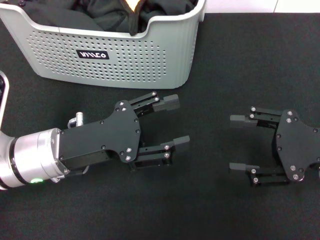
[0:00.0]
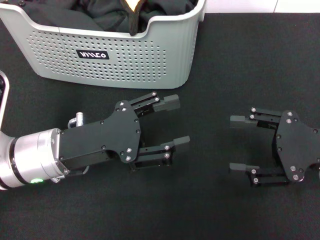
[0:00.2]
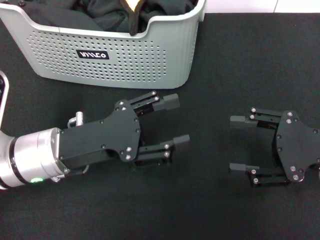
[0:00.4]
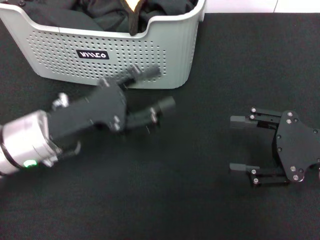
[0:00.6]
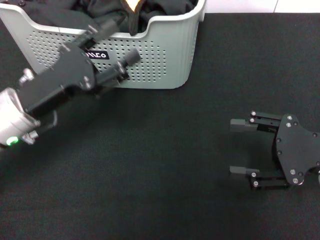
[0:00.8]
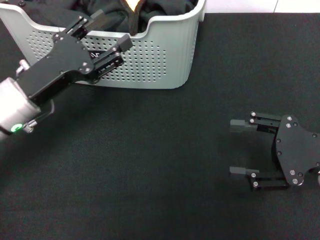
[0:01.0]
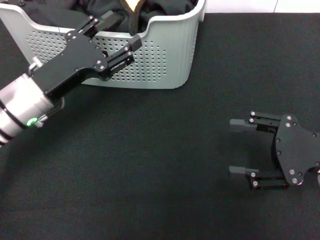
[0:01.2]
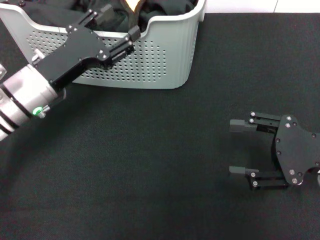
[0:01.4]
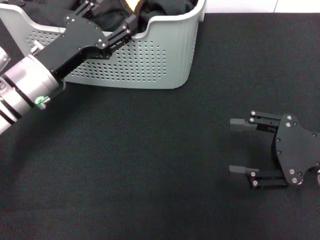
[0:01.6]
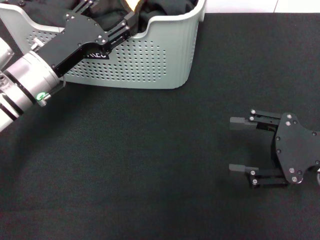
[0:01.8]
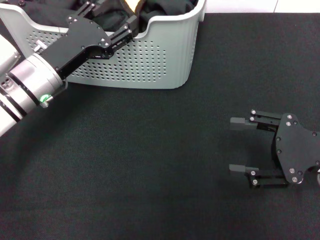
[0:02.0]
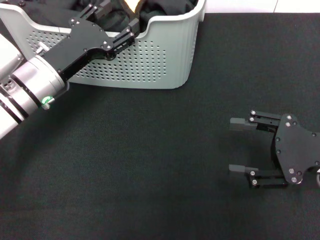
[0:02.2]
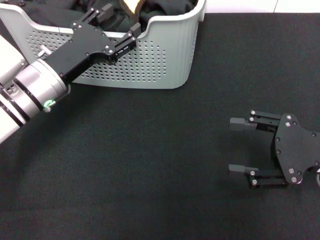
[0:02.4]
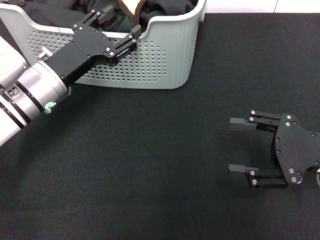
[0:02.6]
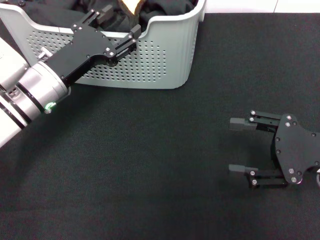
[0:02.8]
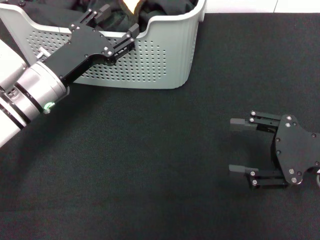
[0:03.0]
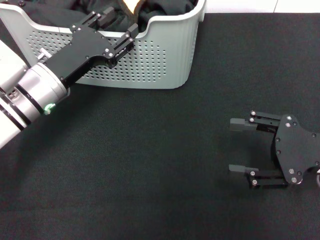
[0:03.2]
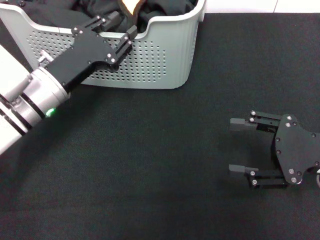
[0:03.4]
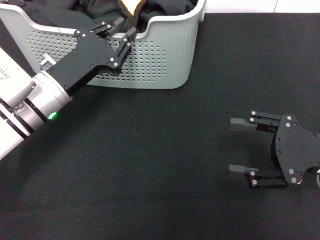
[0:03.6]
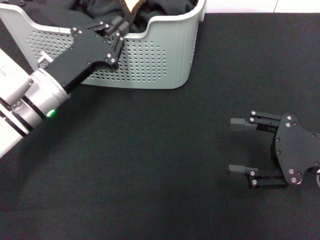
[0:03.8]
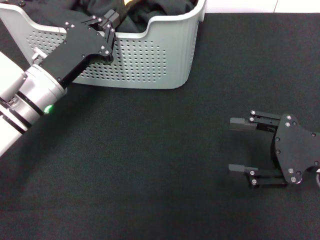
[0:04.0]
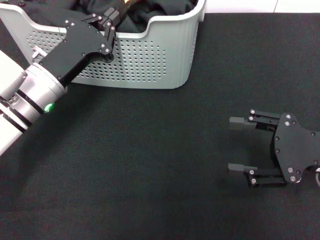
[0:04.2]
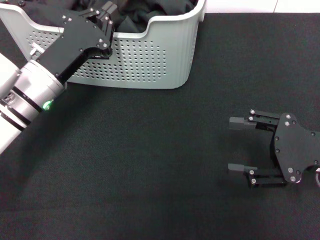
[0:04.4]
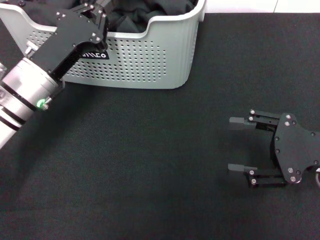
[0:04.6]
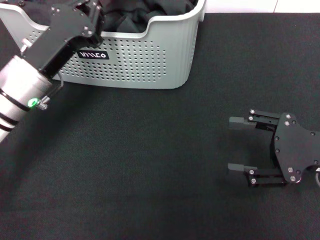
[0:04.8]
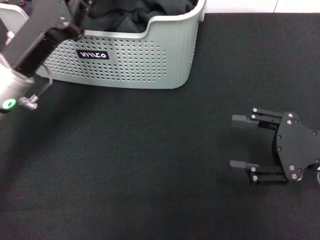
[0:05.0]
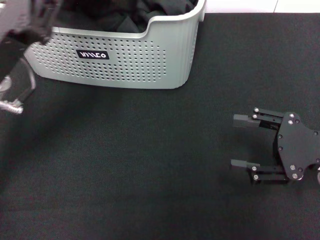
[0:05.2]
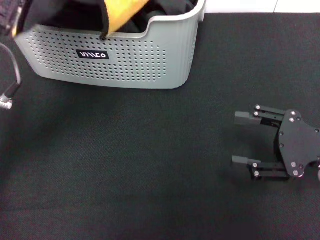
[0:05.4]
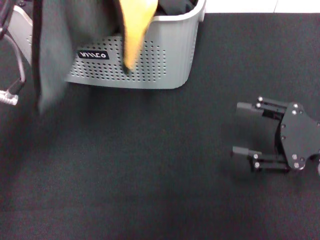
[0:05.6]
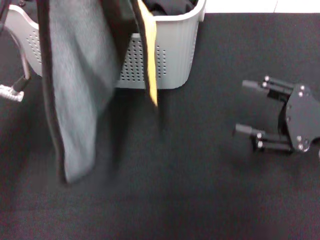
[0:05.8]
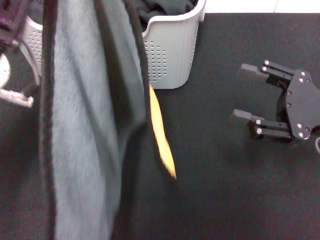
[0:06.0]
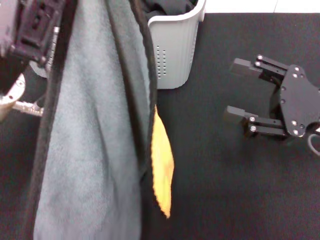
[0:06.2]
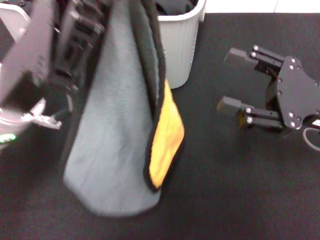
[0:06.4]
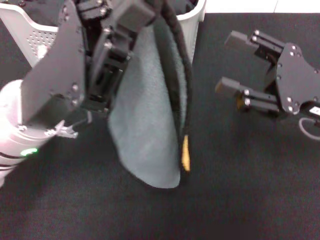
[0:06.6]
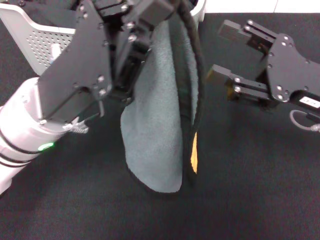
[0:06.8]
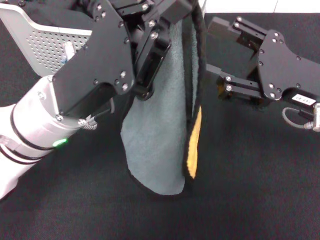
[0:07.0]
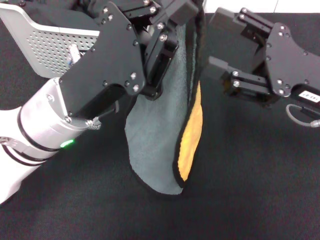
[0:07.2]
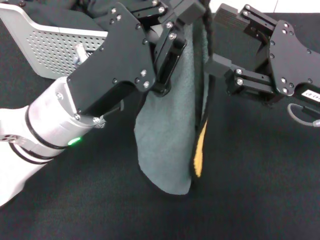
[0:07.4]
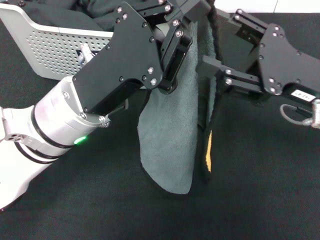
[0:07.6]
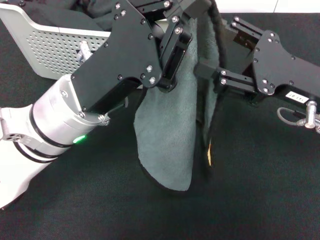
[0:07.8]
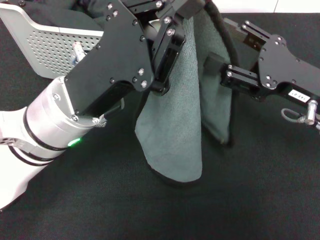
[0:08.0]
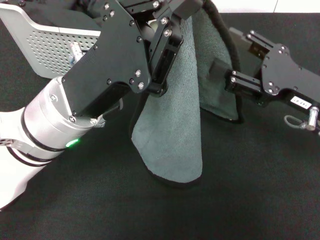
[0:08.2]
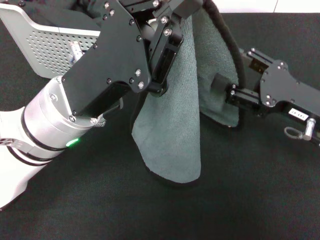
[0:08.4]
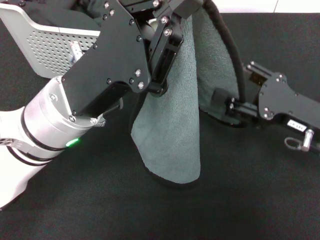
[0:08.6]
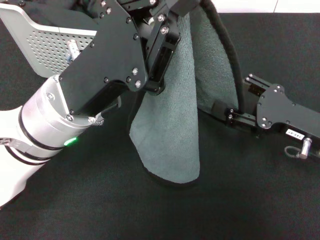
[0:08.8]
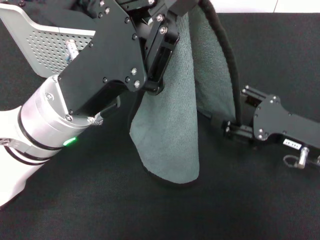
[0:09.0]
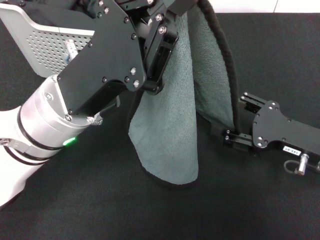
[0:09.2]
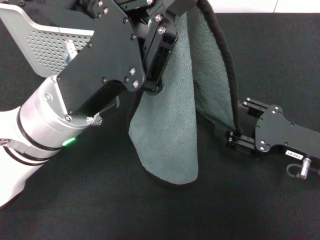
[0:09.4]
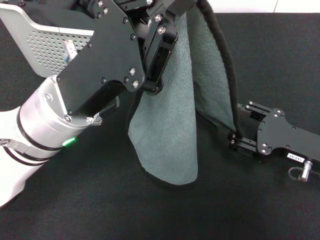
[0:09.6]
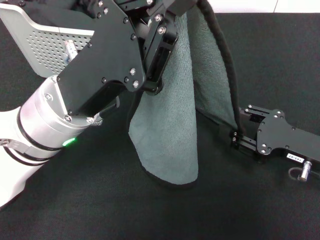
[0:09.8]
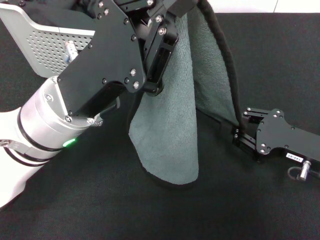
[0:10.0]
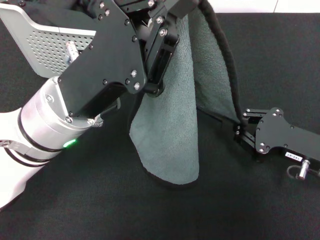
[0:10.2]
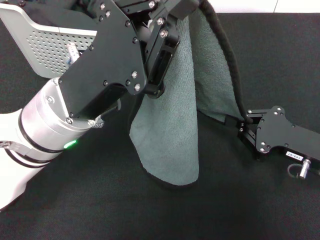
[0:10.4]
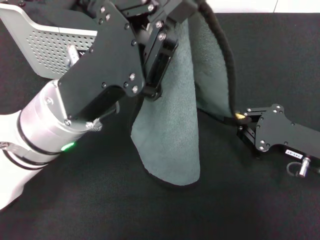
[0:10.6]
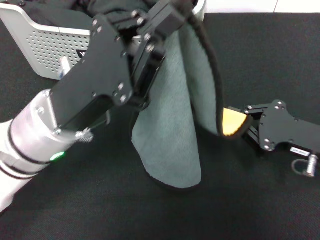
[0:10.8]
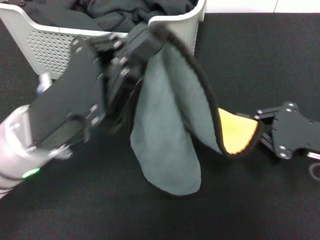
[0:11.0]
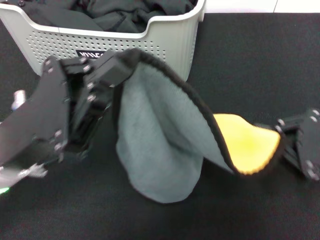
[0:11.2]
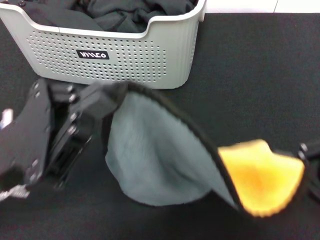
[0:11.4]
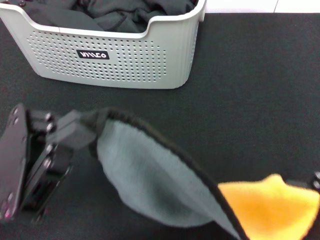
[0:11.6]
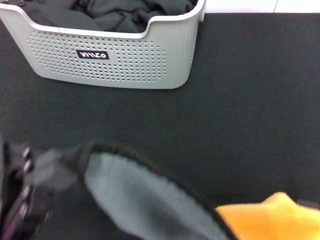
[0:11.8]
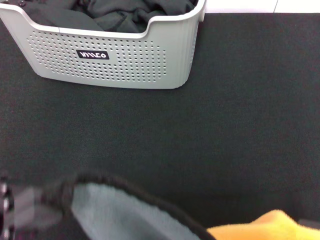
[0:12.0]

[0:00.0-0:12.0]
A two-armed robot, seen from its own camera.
Task of the whole recording: pick up the towel from the storage box and lay it flat on the black tablecloth.
Step, 0:00.0 to 0:04.2: Pick up a towel with the left gripper.
Step, 0:04.4 to 0:10.4: Spread the towel flat with the left gripper.
0:00.0 to 0:01.6: The left gripper goes roughly 10 cm forward.
0:01.6 to 0:03.0: The grippers stay close to where they were, moving slightly.
0:03.0 to 0:04.4: The left gripper closes its fingers.
0:04.4 to 0:06.0: The left gripper travels upward and backward by roughly 15 cm.
0:06.0 to 0:07.6: The left gripper shifts approximately 10 cm to the right and downward; the right gripper shifts some 5 cm to the left.
0:07.6 to 0:09.0: The right gripper moves downward, roughly 10 cm.
0:09.0 to 0:10.4: The right gripper closes.
0:10.4 to 0:12.0: The left gripper goes approximately 15 cm backward and to the left; the right gripper is displaced backward and upward by some 20 cm.

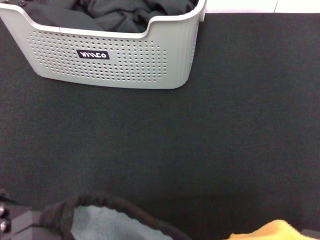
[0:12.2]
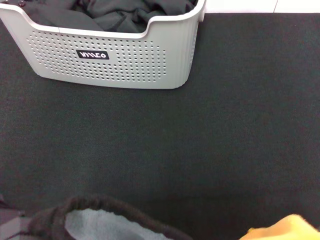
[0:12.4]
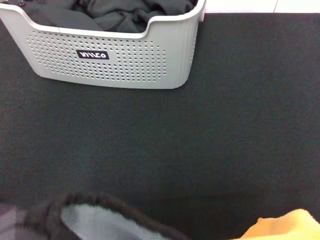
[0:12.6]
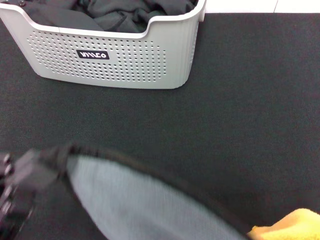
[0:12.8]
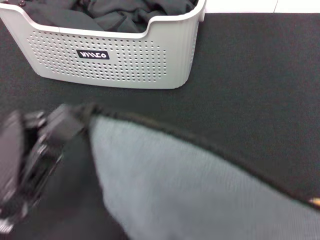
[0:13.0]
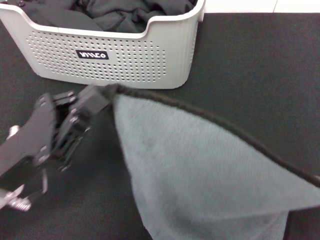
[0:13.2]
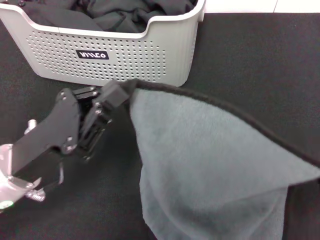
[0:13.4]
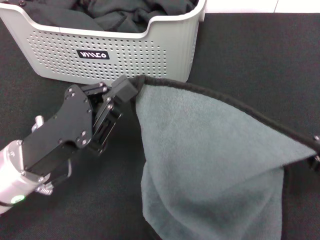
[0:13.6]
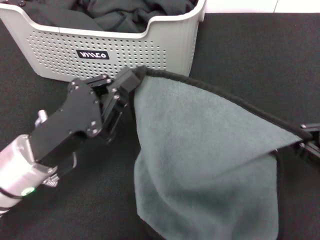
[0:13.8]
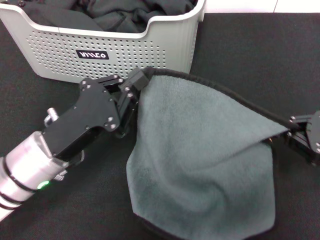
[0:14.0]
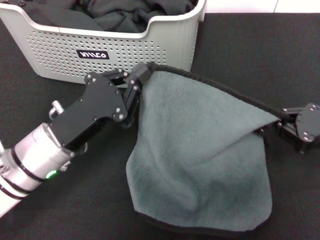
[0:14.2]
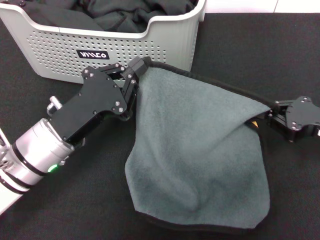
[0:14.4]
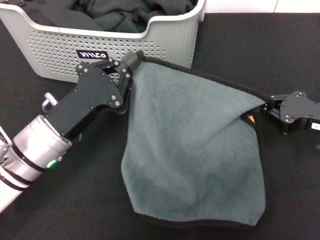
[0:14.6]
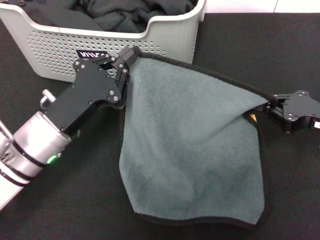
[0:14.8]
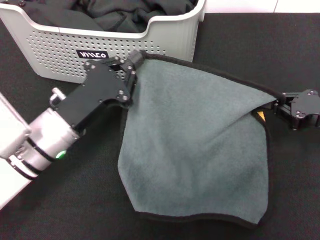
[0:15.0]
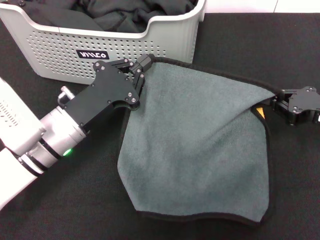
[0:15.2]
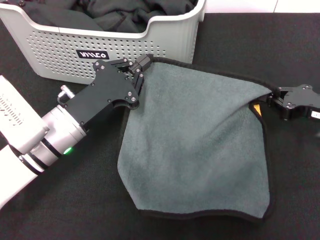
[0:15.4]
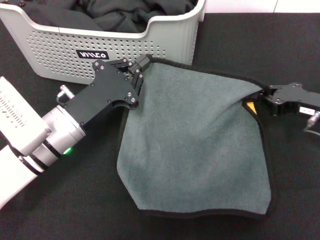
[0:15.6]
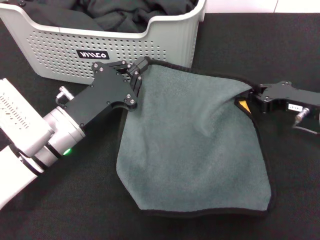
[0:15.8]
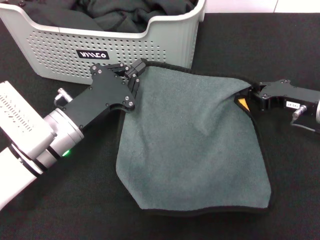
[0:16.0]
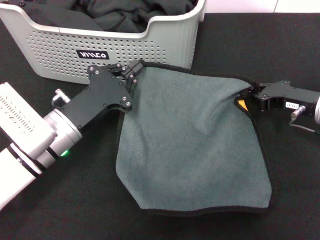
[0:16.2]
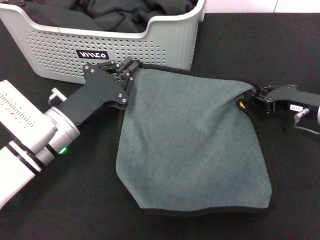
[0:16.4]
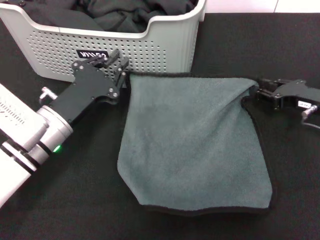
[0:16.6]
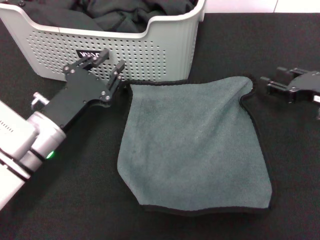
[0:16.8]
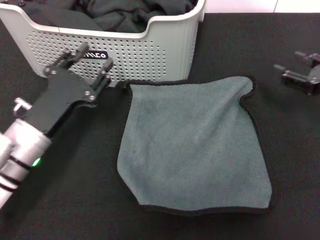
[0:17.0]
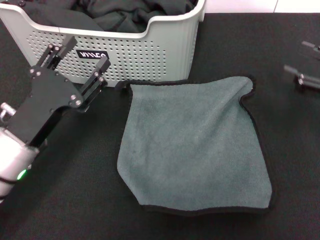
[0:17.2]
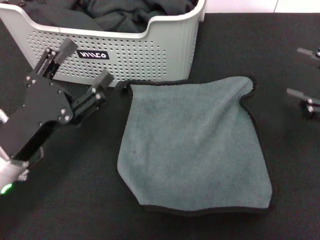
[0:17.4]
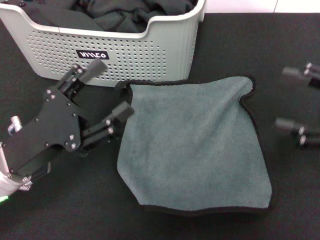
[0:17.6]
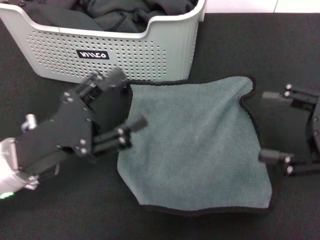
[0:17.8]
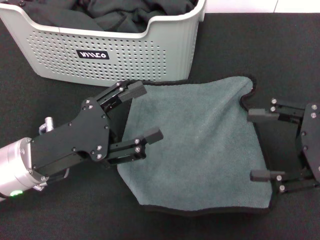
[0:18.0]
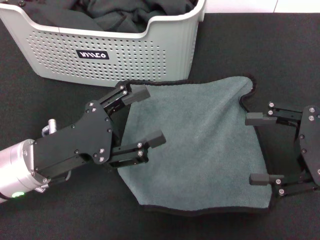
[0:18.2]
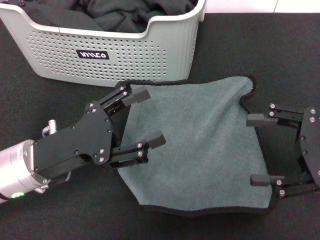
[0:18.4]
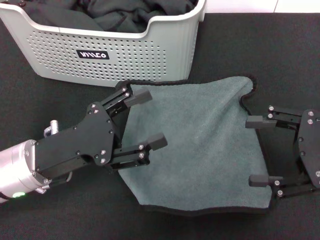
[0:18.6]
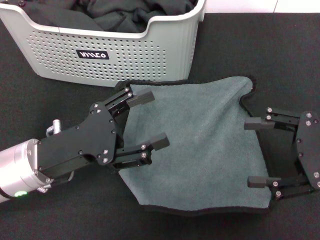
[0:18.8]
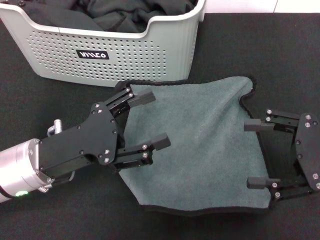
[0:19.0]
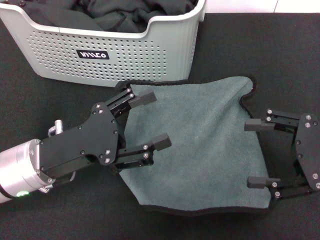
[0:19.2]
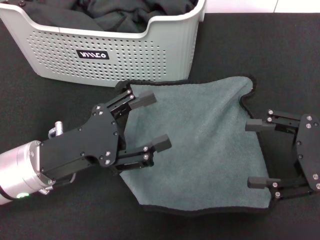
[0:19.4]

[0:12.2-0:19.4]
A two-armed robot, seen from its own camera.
Task of the whole recording: pick up the towel from the storage box and lay it flat on the black tablecloth.
Step, 0:12.2 to 0:16.6: Spread the towel flat with the right gripper.
0:12.2 to 0:13.6: The grippers both shift forward and downward by roughly 10 cm.
0:13.6 to 0:15.0: The left gripper is displaced forward by about 5 cm; the right gripper travels forward by roughly 10 cm.
0:15.0 to 0:16.6: The right gripper is displaced forward by about 5 cm.
0:16.6 to 0:18.0: The left gripper shifts roughly 5 cm backward, and opens its fingers. The right gripper heads backward and upward, covering about 15 cm, and opens up.
0:18.0 to 0:19.4: The grippers make only small movements.
